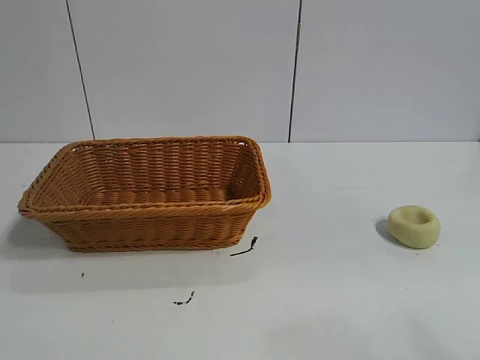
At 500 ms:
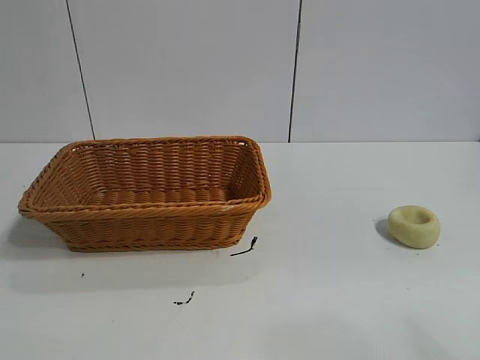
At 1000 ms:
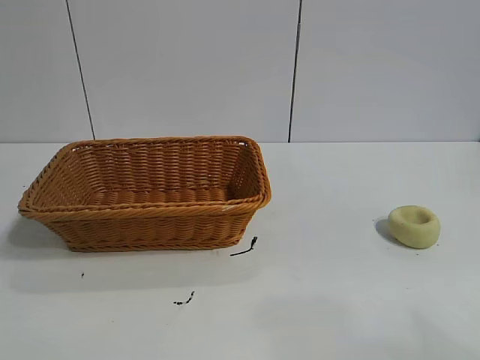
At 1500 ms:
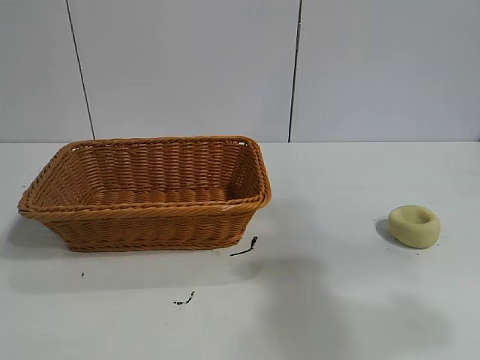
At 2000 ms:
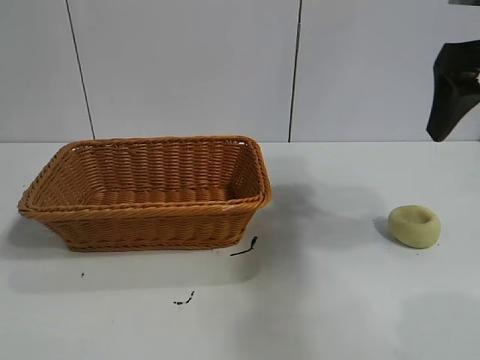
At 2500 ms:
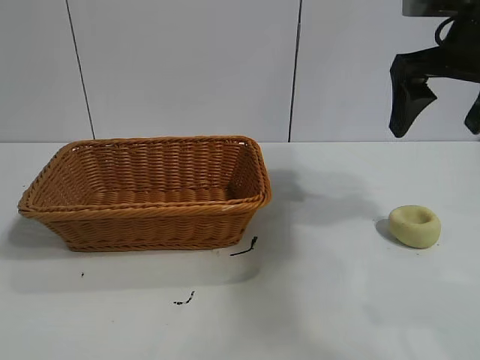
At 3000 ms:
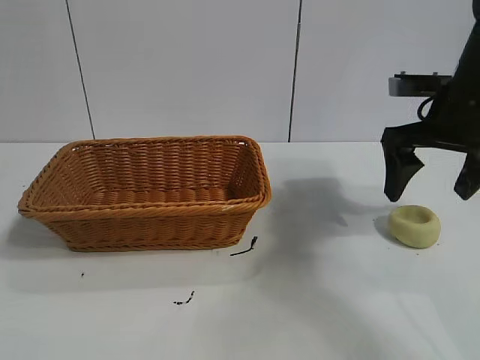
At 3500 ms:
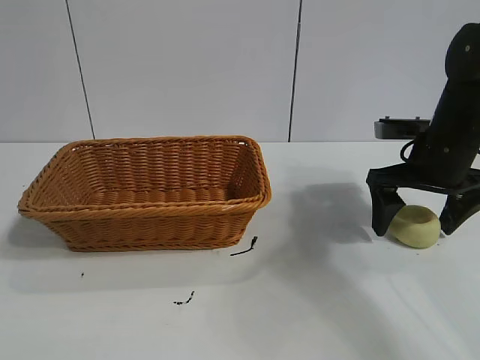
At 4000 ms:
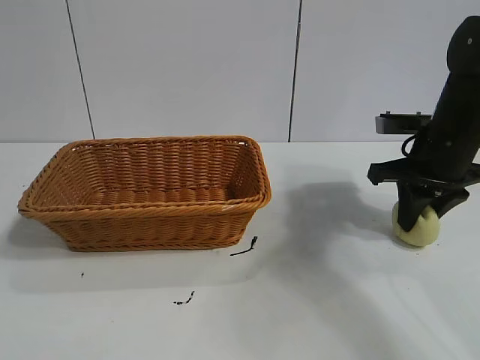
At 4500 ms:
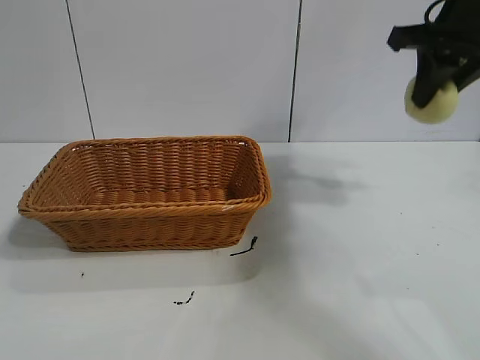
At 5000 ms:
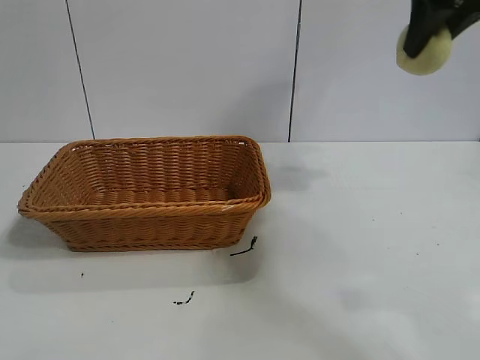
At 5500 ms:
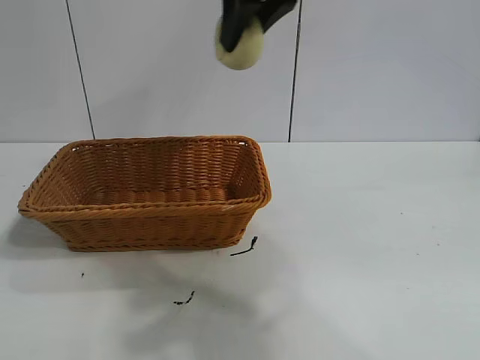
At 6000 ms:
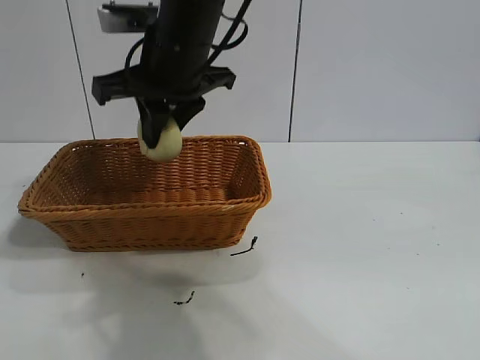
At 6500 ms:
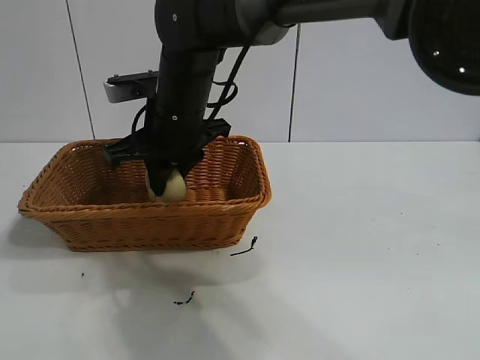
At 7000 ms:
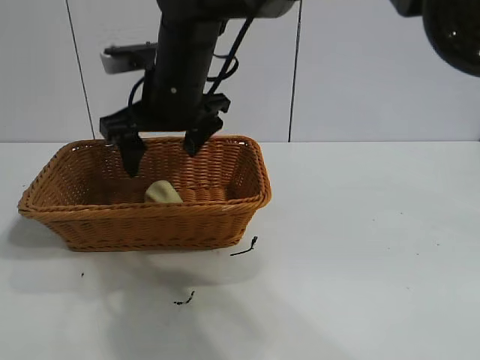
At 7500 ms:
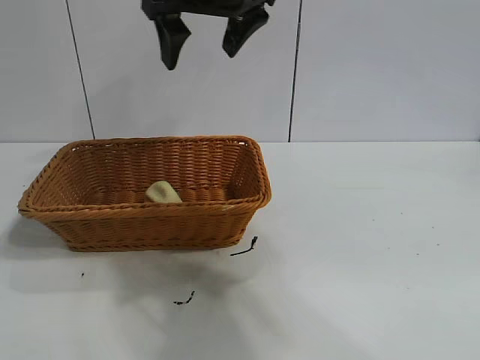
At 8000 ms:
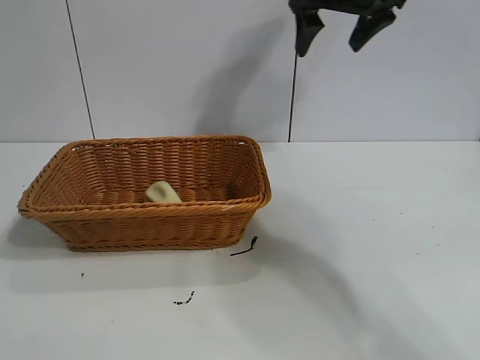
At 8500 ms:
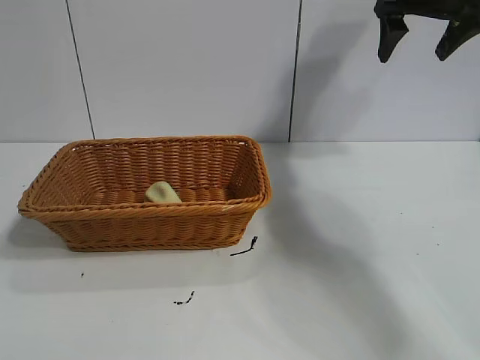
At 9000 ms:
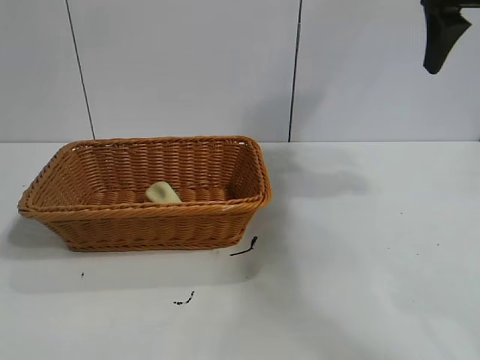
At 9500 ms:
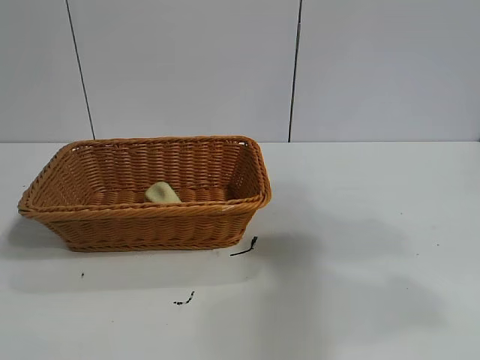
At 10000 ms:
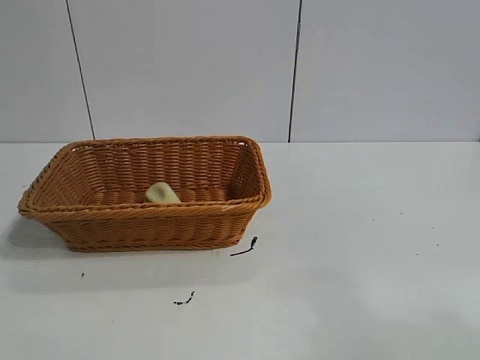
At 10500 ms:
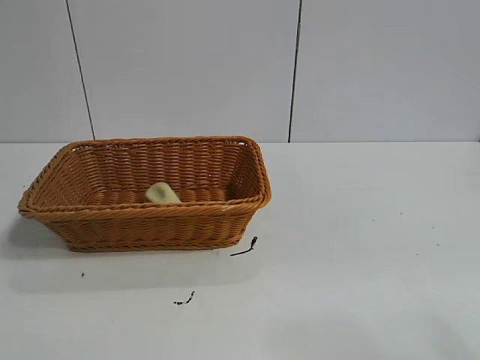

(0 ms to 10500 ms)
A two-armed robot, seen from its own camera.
Task of the whole recording: pick up the egg yolk pastry and put it into the basket.
Step, 0 ms - 3500 ms: Grasp egg yolk pastry with right gripper.
Step, 4500 ms - 6500 ms: Place the egg yolk pastry in the basket with right gripper.
